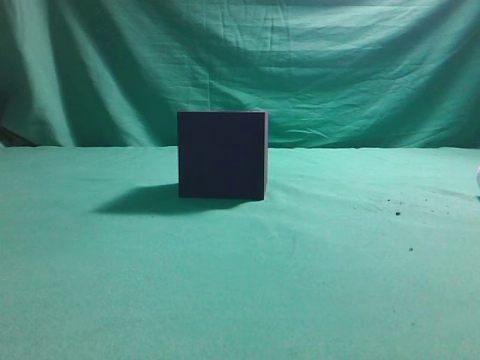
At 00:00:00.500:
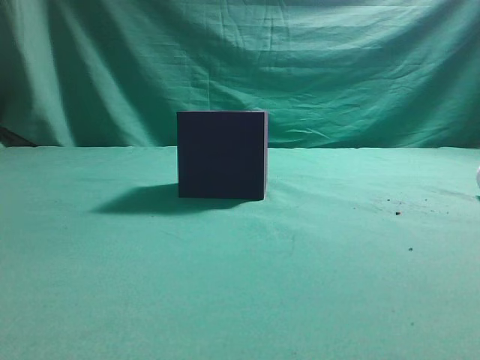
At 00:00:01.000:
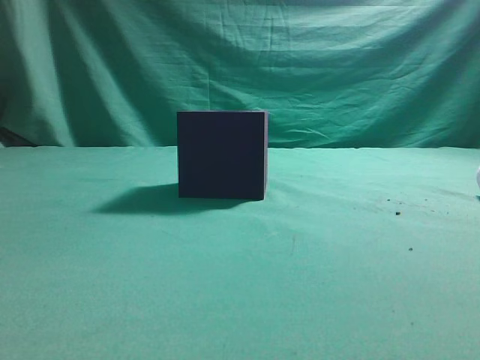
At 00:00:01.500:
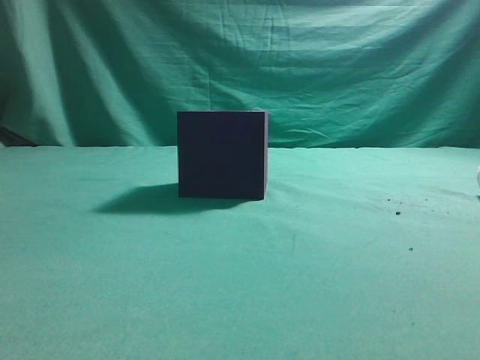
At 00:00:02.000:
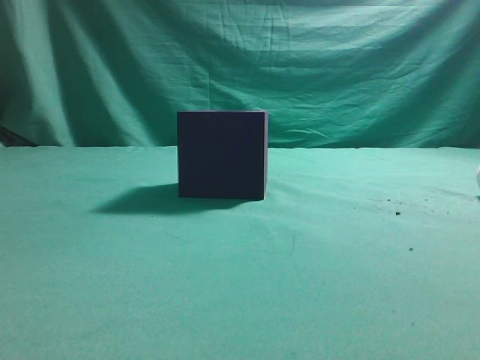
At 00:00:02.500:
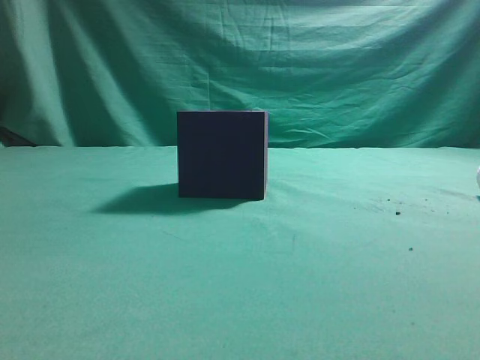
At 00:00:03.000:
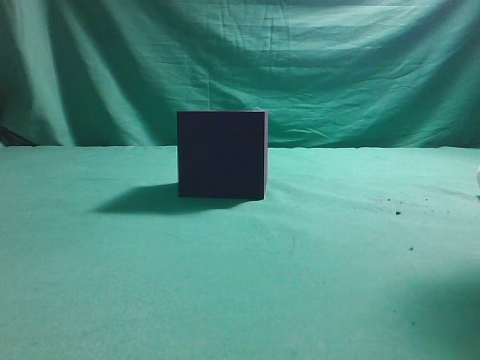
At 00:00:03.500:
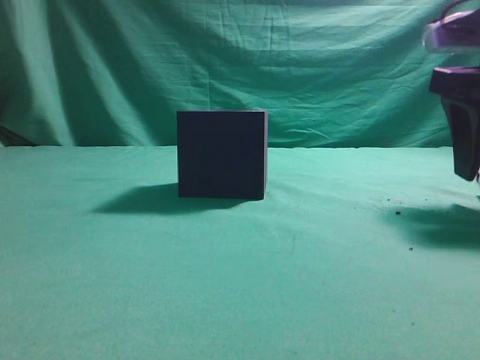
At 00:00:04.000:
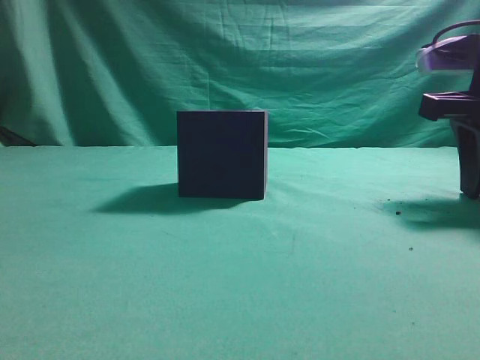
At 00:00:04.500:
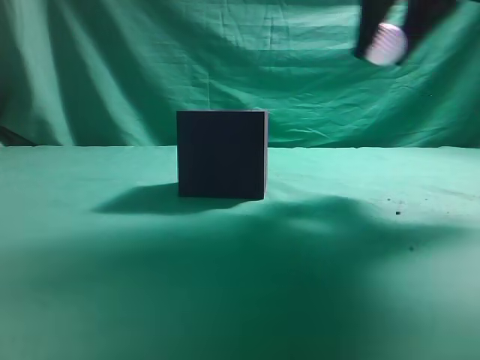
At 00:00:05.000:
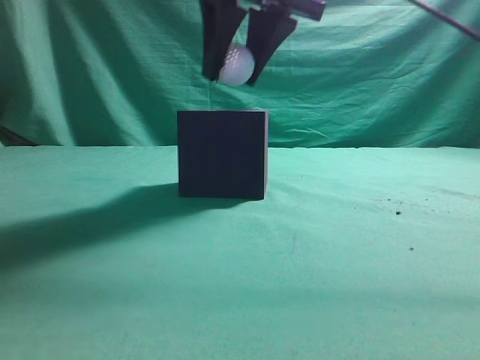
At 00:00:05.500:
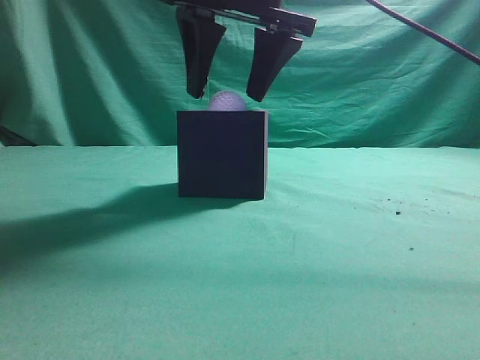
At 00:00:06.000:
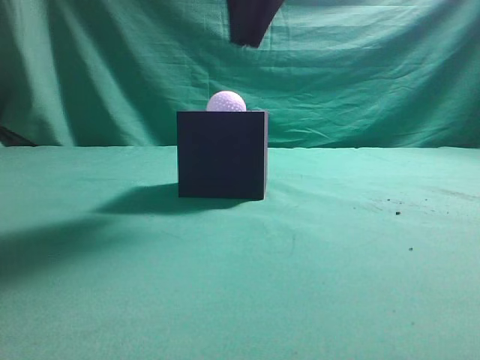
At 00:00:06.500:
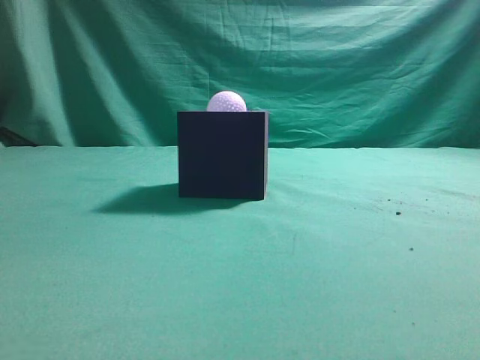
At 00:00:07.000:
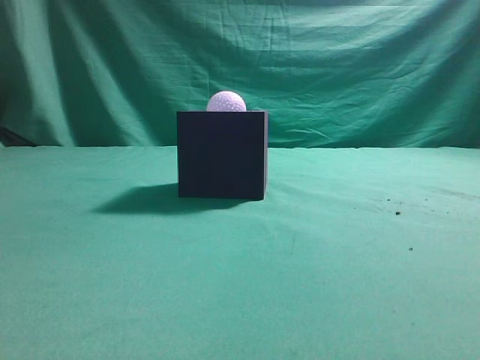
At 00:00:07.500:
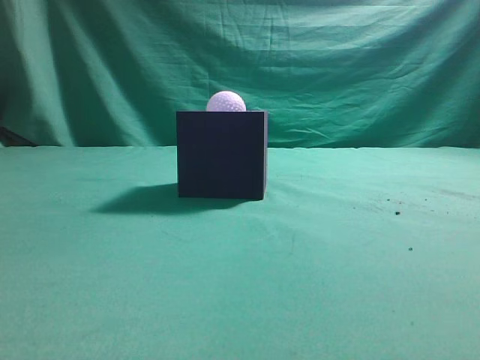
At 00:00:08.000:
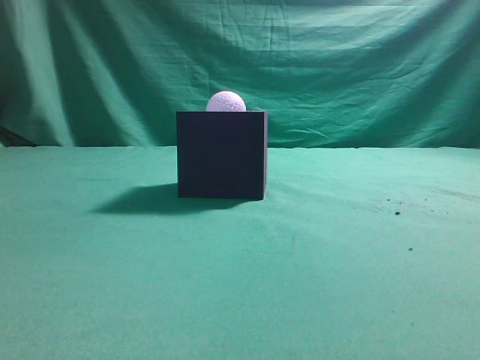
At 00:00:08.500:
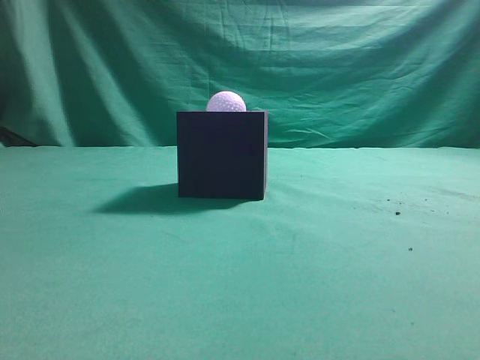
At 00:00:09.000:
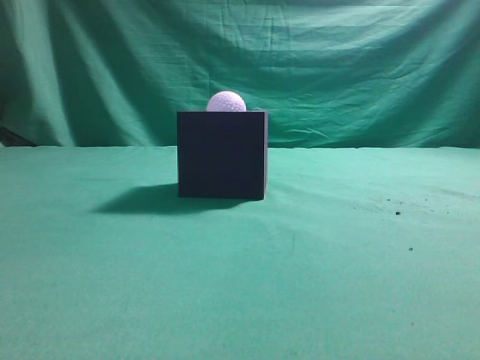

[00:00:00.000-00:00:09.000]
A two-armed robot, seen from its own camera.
Task of the whole recording: Pick up the ball and place it in the circular groove above the cube.
Step, 00:00:00.000 to 00:00:04.000: Grasp the sphere on the table.
Step, 00:00:04.500 to 00:00:05.500: Place the sphere into the sphere-shaped recess.
00:00:02.000 to 00:00:04.500: The right gripper is displaced forward and to the left by roughly 25 cm, and opens its fingers.
00:00:04.500 to 00:00:07.000: The right gripper goes roughly 25 cm backward and upward, and closes.
